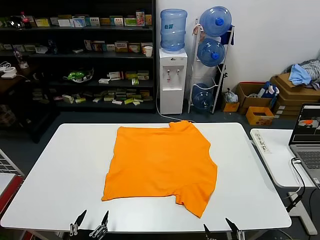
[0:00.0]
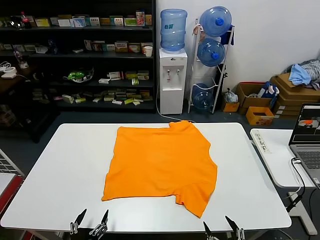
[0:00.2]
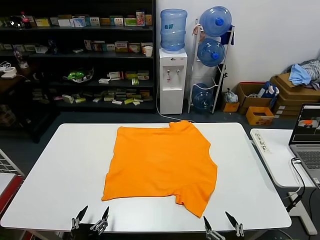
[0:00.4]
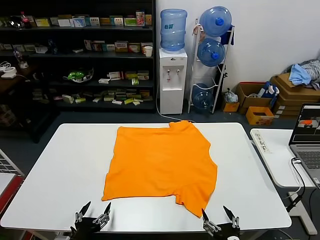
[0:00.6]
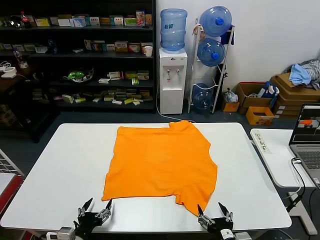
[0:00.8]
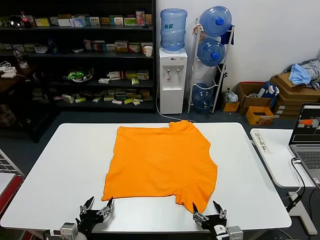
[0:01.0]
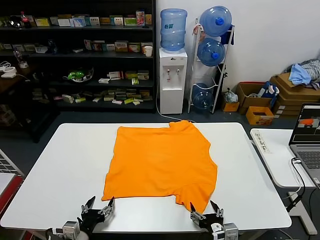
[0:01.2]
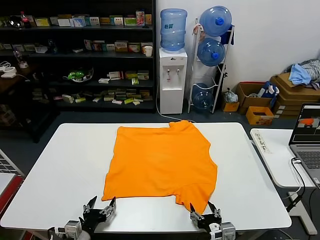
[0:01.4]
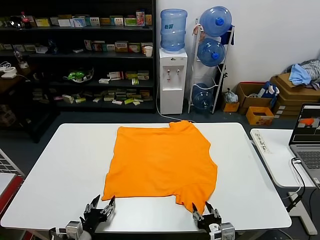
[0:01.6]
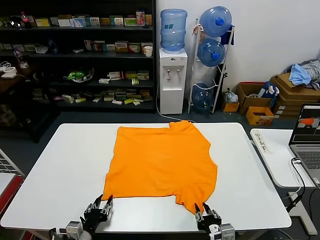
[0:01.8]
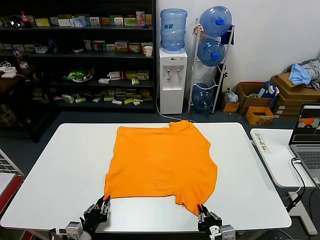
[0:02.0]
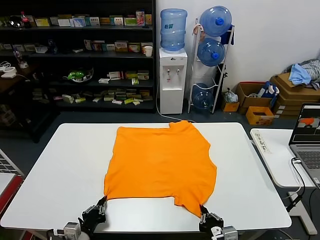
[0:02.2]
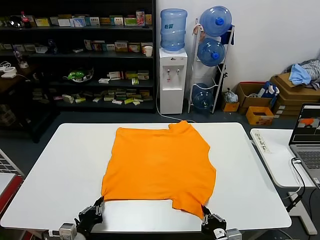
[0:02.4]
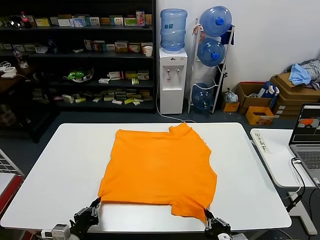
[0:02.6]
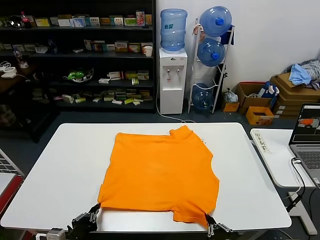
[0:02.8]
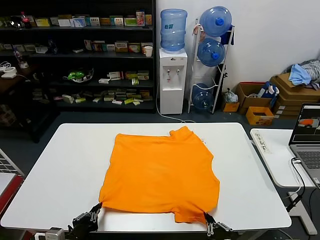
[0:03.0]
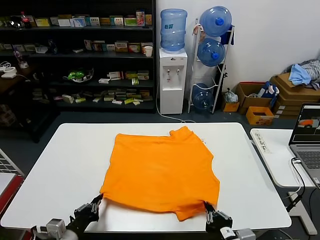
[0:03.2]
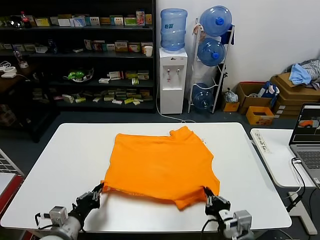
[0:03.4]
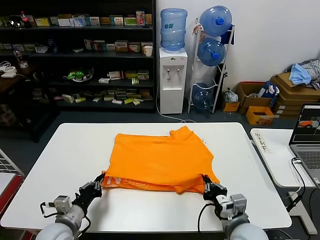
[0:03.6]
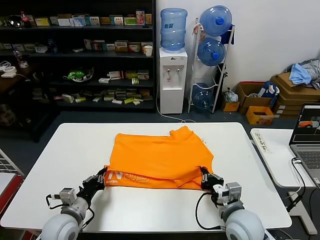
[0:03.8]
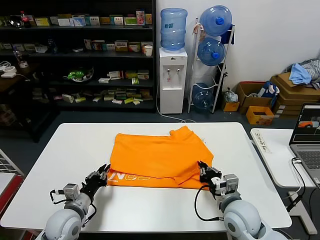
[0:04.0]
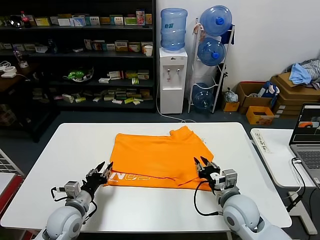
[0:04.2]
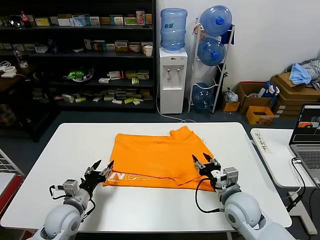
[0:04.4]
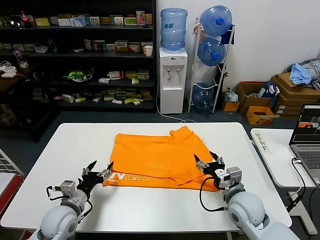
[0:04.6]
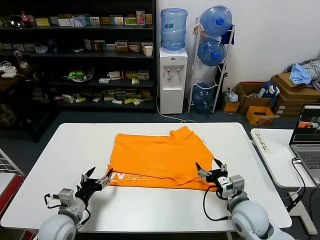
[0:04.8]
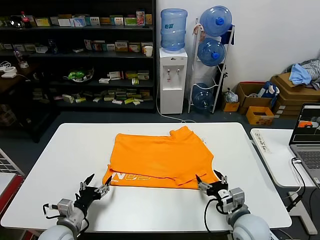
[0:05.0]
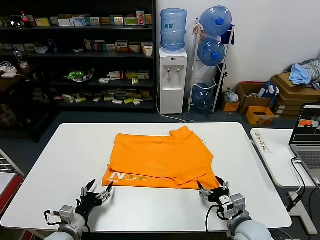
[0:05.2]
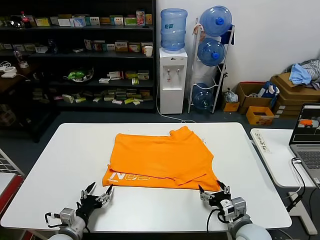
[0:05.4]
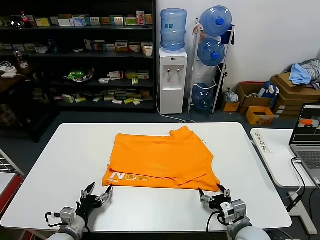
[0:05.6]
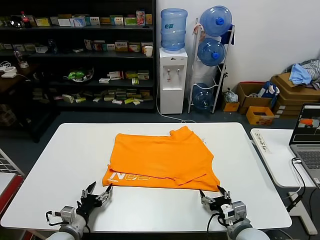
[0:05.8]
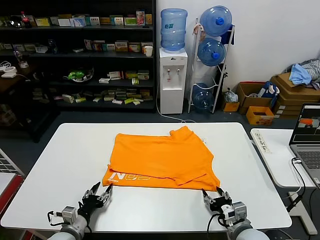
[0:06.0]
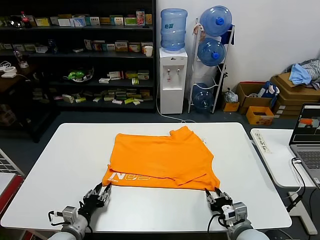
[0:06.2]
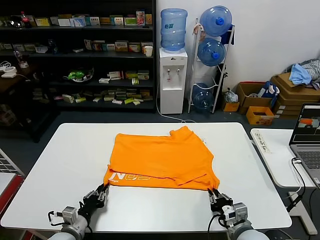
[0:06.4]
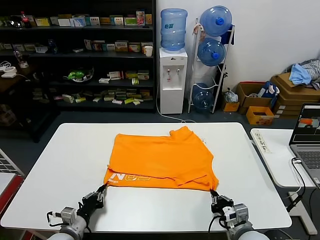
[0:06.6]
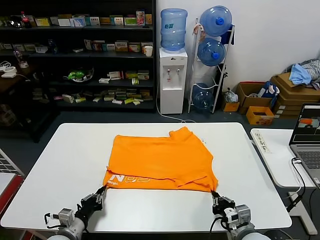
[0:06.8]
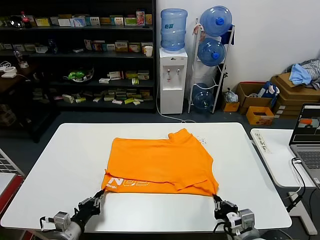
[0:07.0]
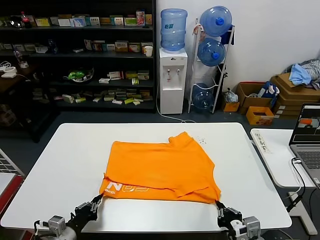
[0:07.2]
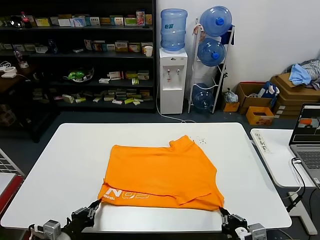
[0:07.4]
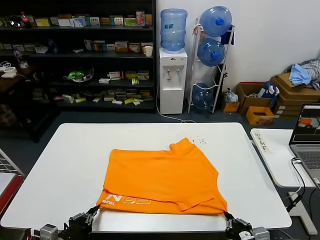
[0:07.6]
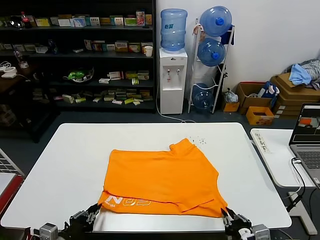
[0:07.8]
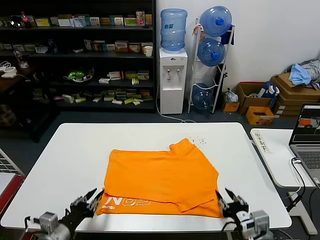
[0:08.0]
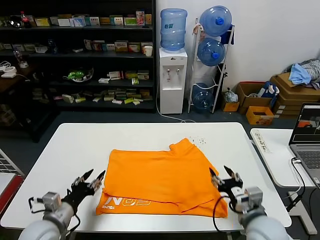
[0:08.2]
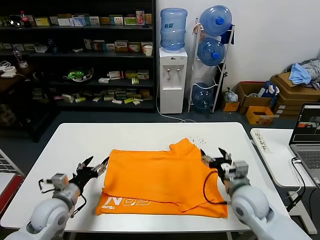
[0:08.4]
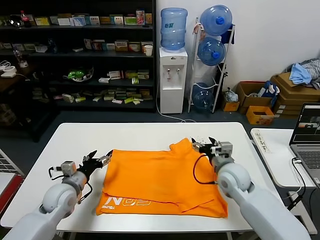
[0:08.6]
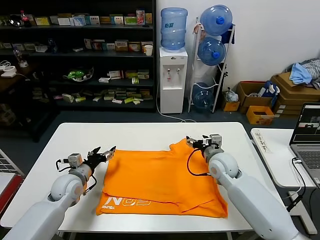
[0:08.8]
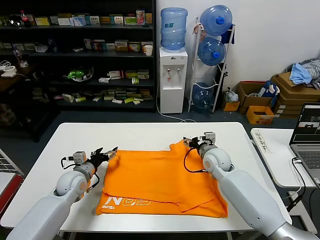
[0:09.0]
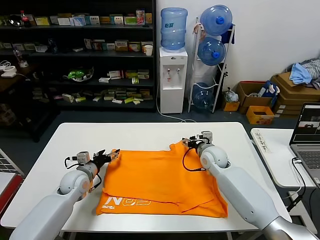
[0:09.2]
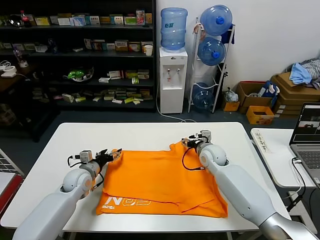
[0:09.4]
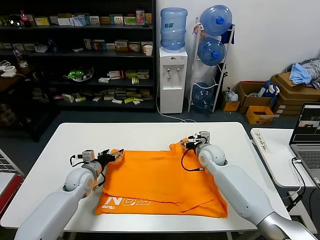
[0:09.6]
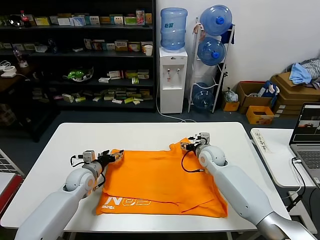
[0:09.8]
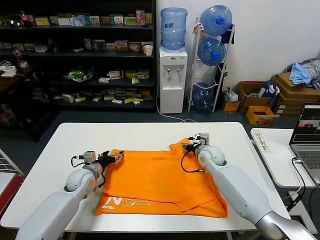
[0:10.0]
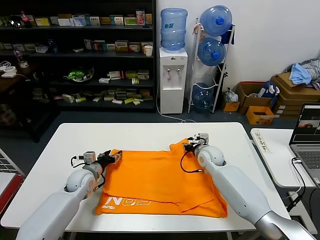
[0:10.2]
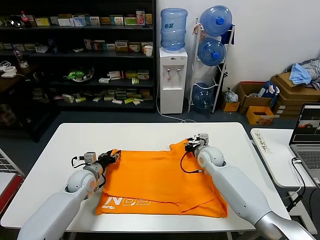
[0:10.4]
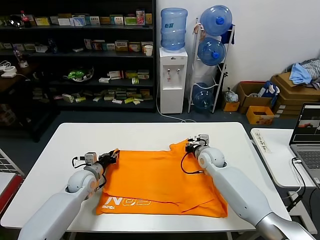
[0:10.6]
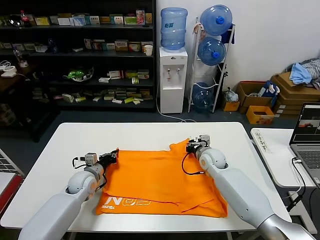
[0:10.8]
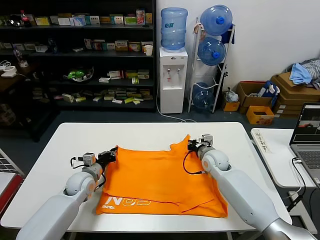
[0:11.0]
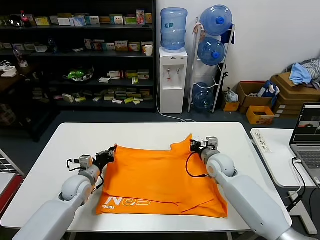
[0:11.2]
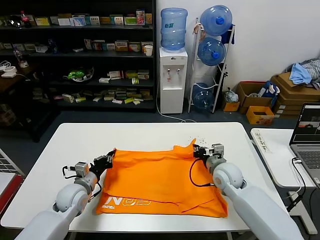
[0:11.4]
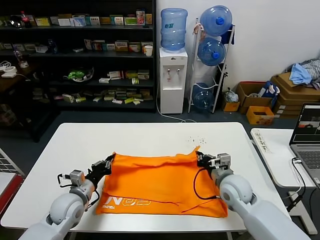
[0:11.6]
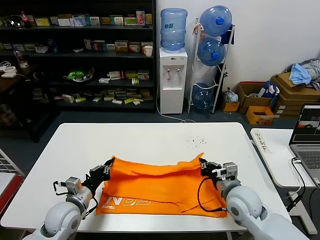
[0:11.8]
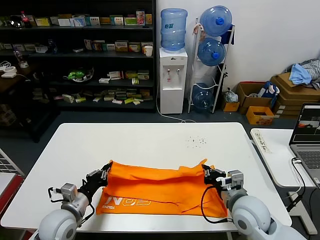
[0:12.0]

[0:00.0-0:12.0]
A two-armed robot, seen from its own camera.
Task of the whole recording: fold and organize the clothes.
Step, 0:00.0 to 0:02.4: use both grippers simultaneously to clamp the lower edge of the clothing fabric.
Step, 0:02.6 to 0:04.2: use both grippers to drag the lower edge of the fabric forward and fold it over the upper edge.
Step, 0:04.4 to 0:07.8: Drag the clothes downward with both gripper.
Step, 0:08.0 to 0:10.8: use both grippers simultaneously to clamp the upper edge of the clothing fabric.
0:01.6 to 0:03.0: The right gripper is displaced upward and backward by roughly 10 cm, and closes; the left gripper is displaced upward by about 5 cm, and closes its fingers.
0:03.0 to 0:04.4: The grippers both shift forward by roughly 15 cm. The left gripper opens; the right gripper opens up.
0:04.4 to 0:06.0: The left gripper goes some 10 cm downward and backward. Meanwhile the right gripper goes approximately 10 cm backward and downward.
0:06.0 to 0:07.6: The left gripper moves upward and backward, about 10 cm, and closes; the right gripper is displaced backward and upward by approximately 10 cm, and closes.
0:07.6 to 0:09.0: The grippers both shift forward by some 30 cm. The left gripper opens its fingers. Meanwhile the right gripper opens its fingers.
0:09.0 to 0:10.4: The left gripper closes. Meanwhile the right gripper closes.
0:10.4 to 0:12.0: Both grippers move backward, roughly 20 cm. The left gripper closes.

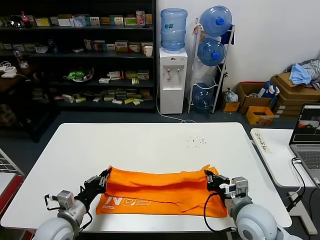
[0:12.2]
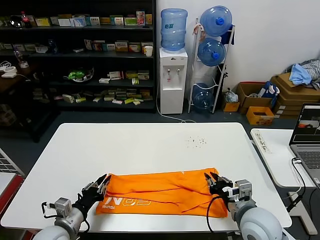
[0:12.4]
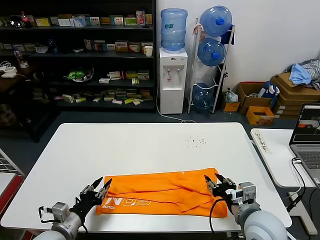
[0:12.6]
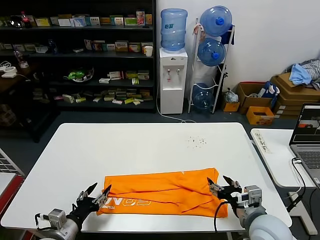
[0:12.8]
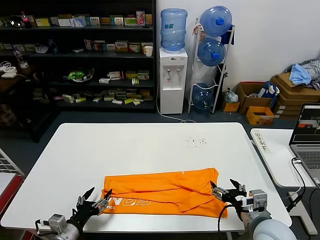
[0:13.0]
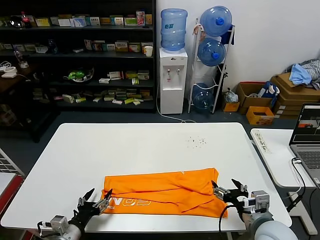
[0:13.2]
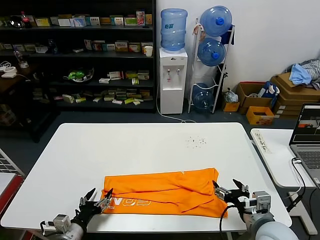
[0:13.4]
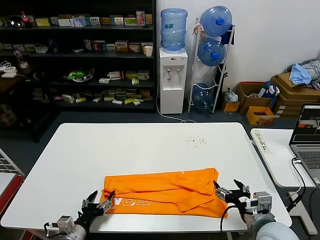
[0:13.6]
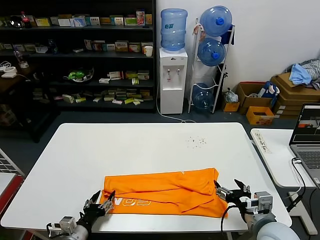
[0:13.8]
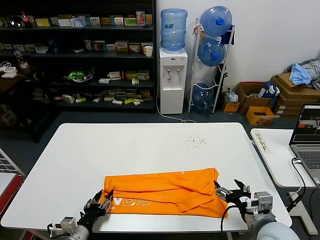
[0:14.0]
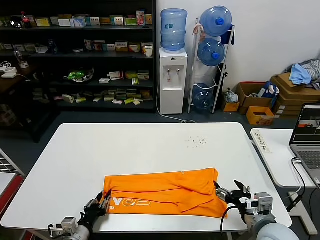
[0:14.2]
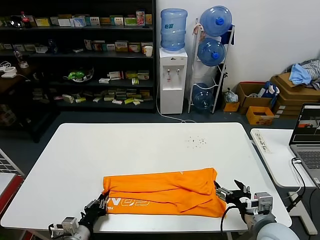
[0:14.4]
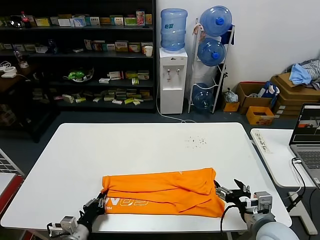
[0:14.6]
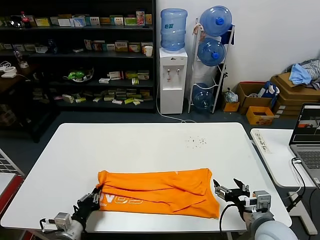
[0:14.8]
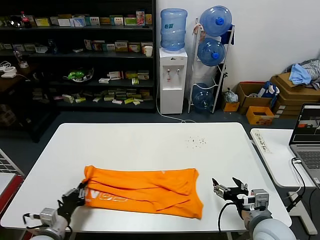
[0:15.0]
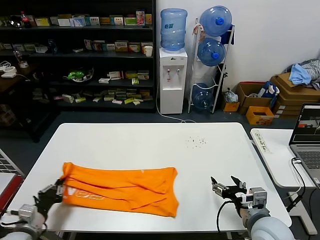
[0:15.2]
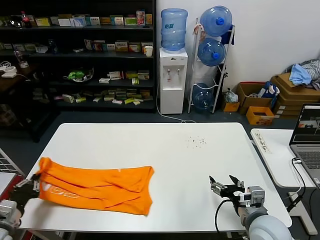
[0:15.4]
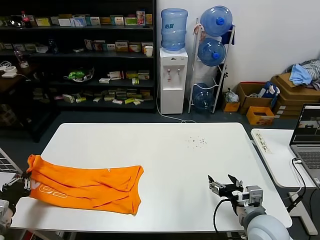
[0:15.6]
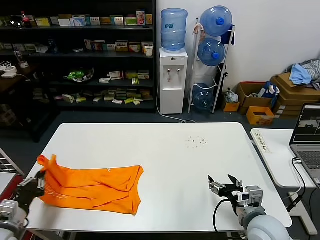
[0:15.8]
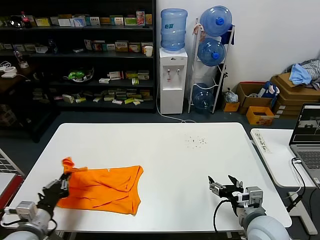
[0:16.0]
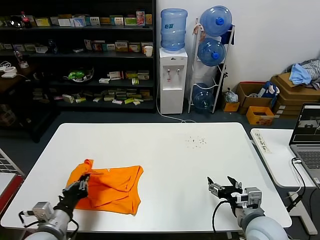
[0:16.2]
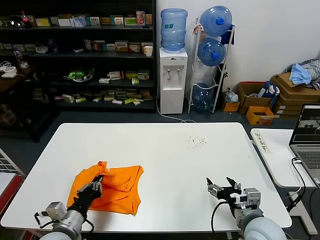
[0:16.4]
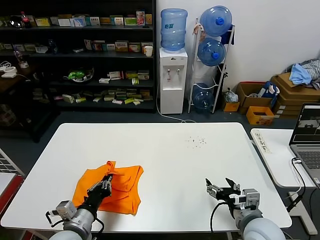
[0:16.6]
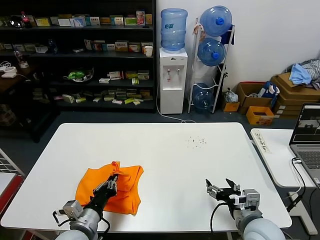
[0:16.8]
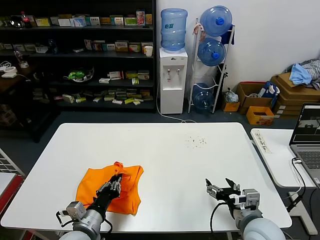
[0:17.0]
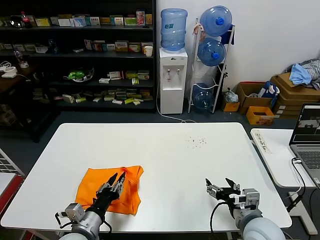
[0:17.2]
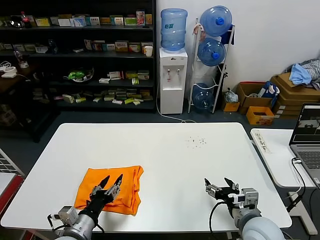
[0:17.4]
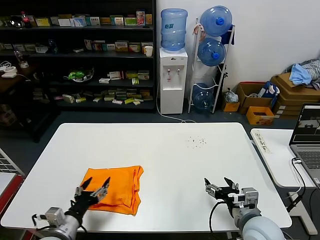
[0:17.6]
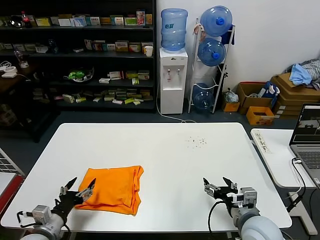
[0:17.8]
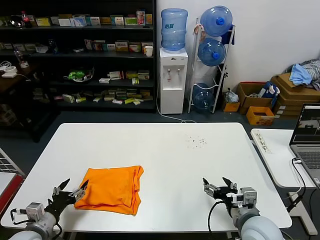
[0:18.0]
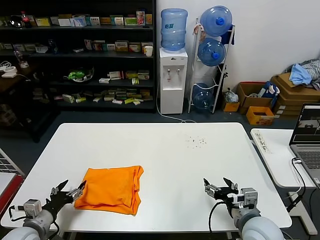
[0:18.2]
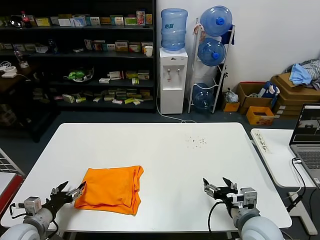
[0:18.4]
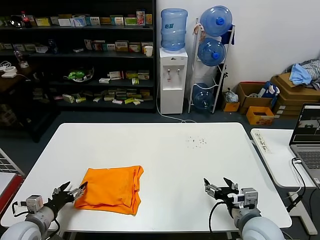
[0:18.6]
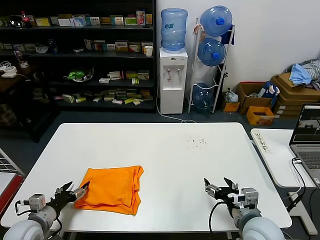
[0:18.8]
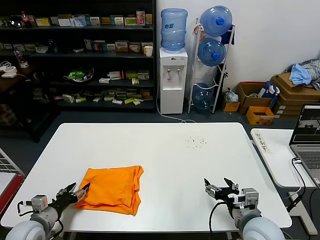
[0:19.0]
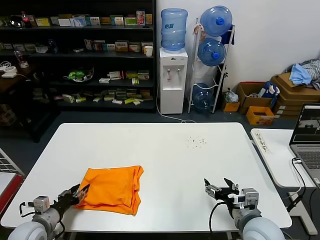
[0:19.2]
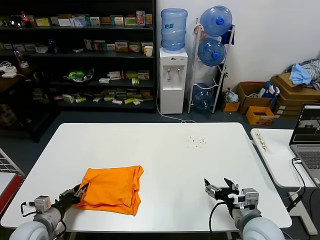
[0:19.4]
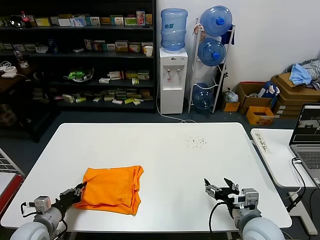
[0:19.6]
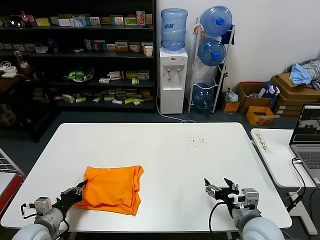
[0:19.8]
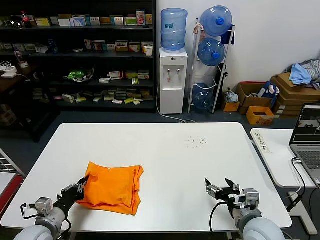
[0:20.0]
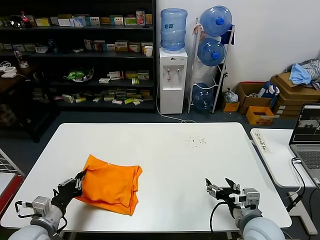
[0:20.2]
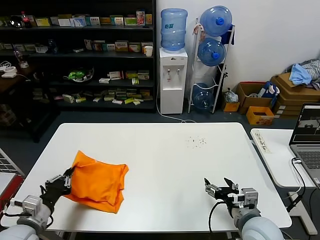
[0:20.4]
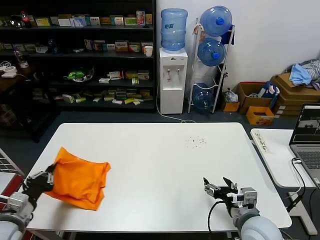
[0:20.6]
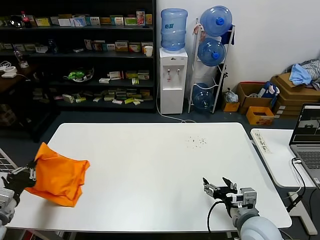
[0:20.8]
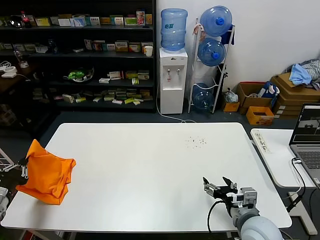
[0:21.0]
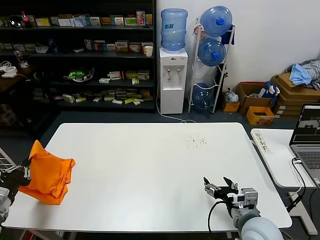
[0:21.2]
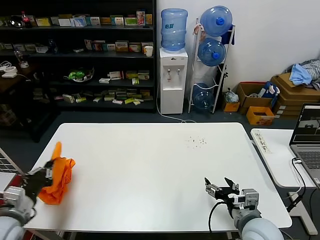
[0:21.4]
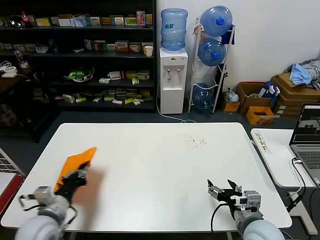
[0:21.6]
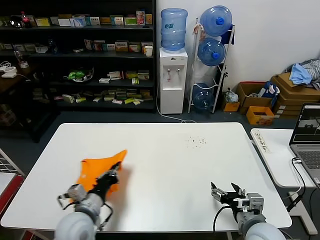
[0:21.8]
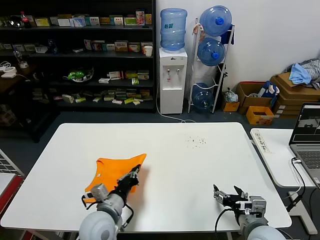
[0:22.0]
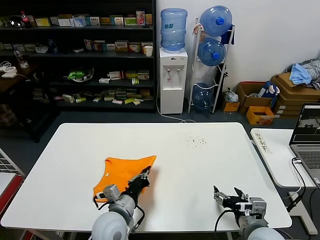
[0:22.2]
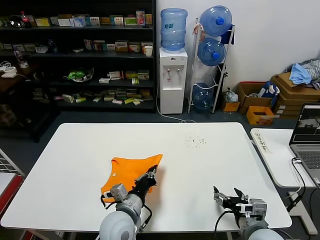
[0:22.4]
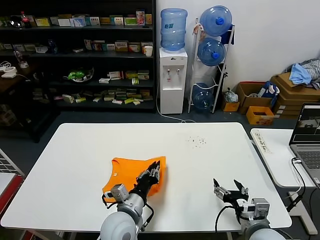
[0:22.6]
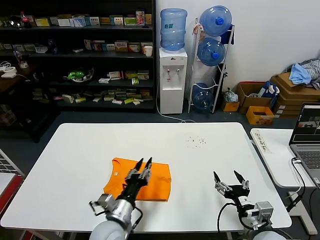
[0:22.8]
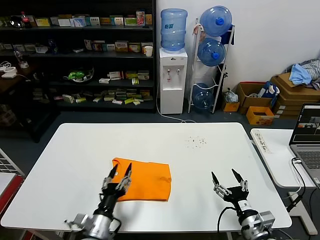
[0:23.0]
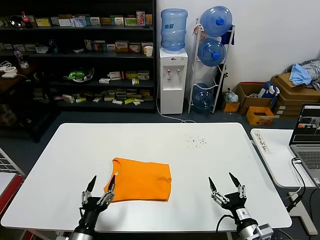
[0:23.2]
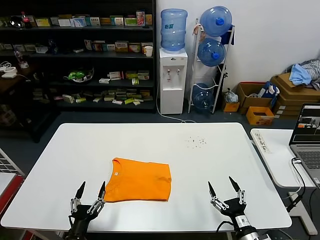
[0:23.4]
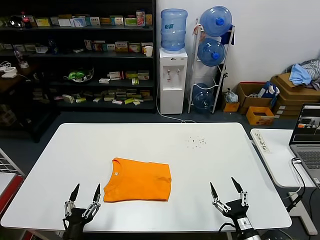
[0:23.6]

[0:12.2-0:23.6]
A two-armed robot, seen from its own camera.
Task of the whole recording: fold and organize the clothes.
Step, 0:12.6 to 0:14.6: use the left gripper to clamp the left edge of the fabric.
Step, 0:14.8 to 0:17.2: use the left gripper to drag the left edge of the fabric to the left and folds it over the right edge.
Step, 0:17.4 to 0:22.6: Flip the folded clothes over with left gripper.
0:12.2 to 0:13.6: The left gripper is displaced downward and backward by approximately 10 cm, and opens its fingers, while the right gripper ends up roughly 5 cm from where it was, and opens its fingers.
0:13.6 to 0:15.0: The left gripper changes place by some 5 cm, and closes up.
0:15.0 to 0:16.4: The left gripper is displaced upward by roughly 5 cm, and travels to the left and back again, roughly 15 cm each way.
0:16.4 to 0:17.8: The left gripper is displaced to the left by roughly 5 cm, and opens.
0:17.8 to 0:19.4: The left gripper goes approximately 5 cm to the left, and closes.
0:19.4 to 0:20.8: The left gripper travels upward by approximately 10 cm, and closes its fingers.
0:20.8 to 0:22.2: The left gripper moves to the right, about 30 cm.
0:22.2 to 0:23.6: The left gripper travels to the left, backward and downward by roughly 20 cm, and opens up. The right gripper travels downward and backward by about 10 cm.
